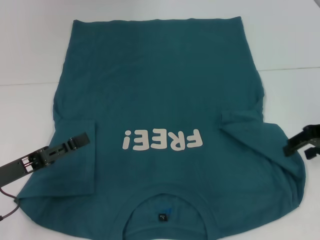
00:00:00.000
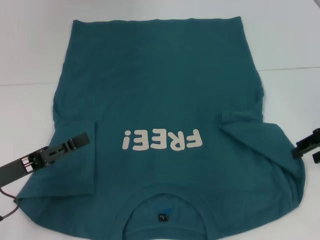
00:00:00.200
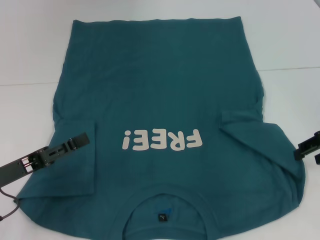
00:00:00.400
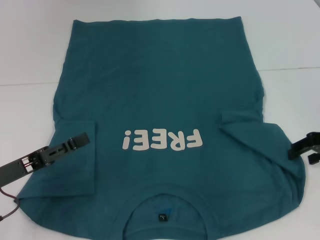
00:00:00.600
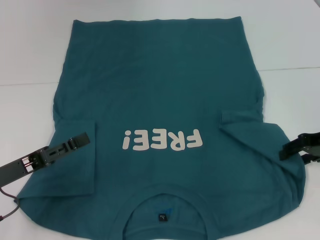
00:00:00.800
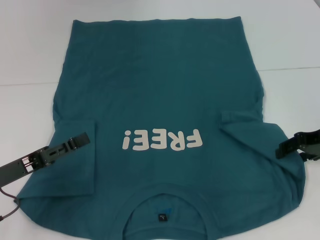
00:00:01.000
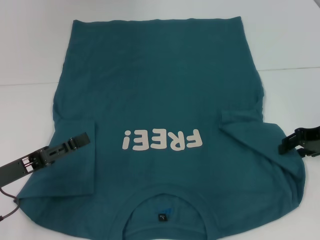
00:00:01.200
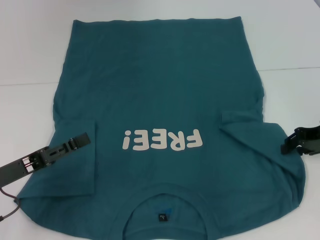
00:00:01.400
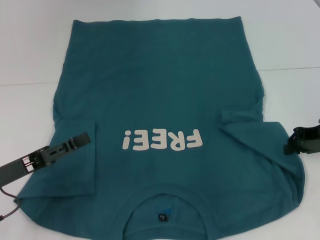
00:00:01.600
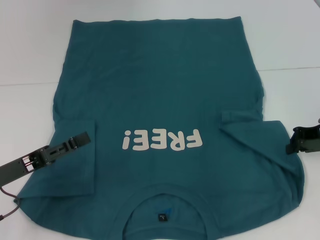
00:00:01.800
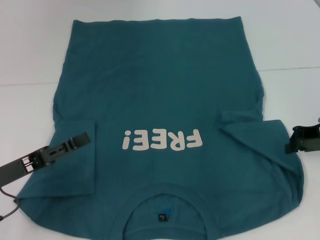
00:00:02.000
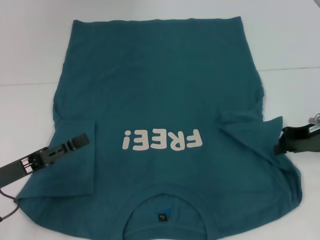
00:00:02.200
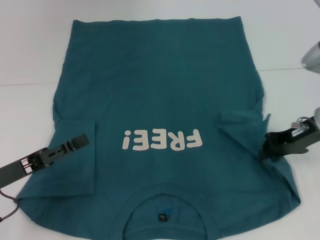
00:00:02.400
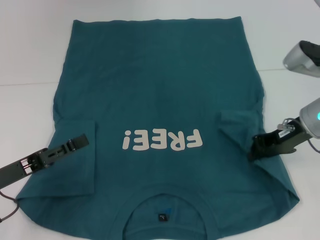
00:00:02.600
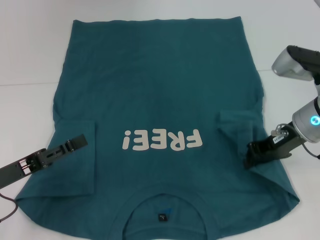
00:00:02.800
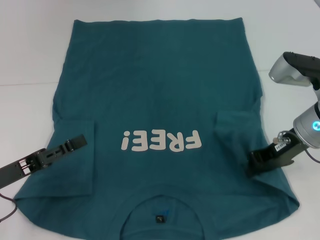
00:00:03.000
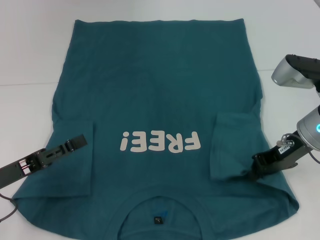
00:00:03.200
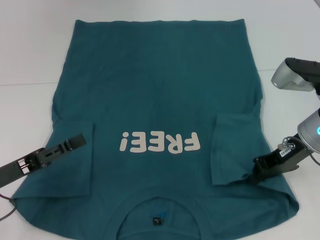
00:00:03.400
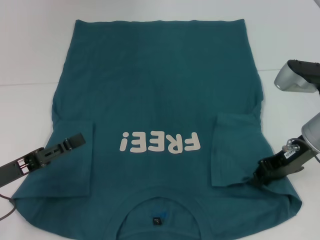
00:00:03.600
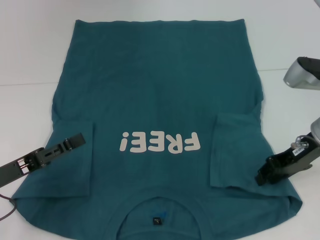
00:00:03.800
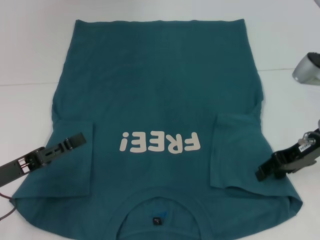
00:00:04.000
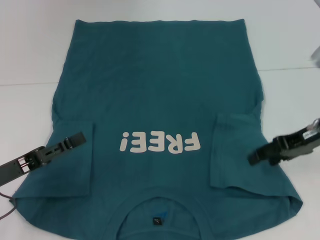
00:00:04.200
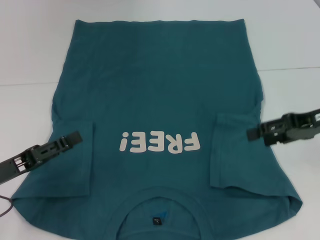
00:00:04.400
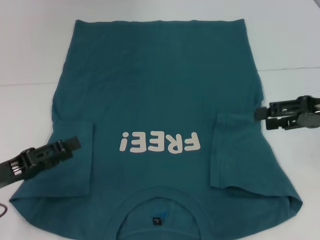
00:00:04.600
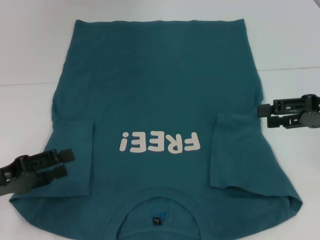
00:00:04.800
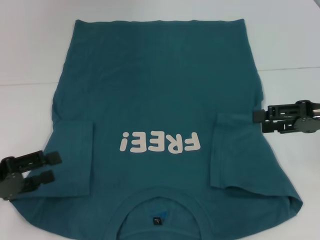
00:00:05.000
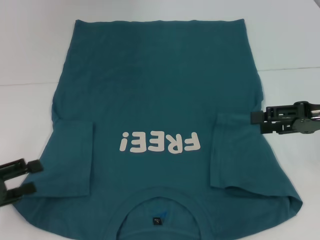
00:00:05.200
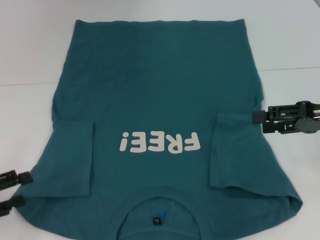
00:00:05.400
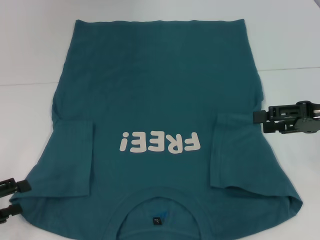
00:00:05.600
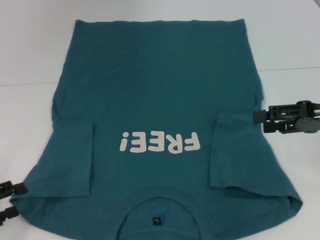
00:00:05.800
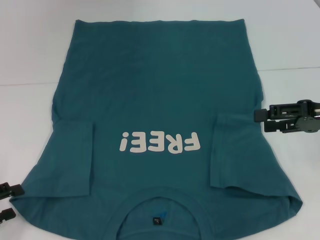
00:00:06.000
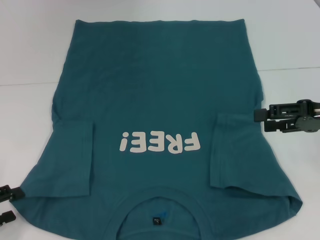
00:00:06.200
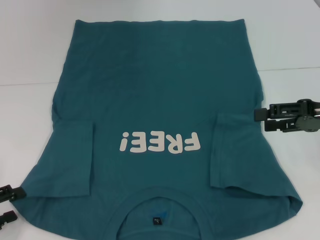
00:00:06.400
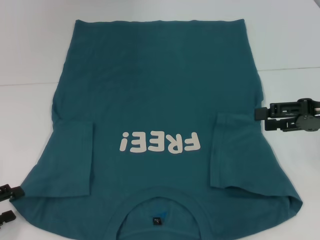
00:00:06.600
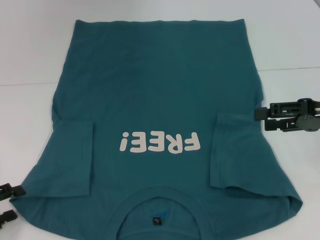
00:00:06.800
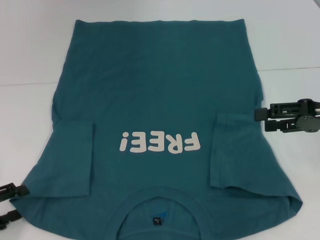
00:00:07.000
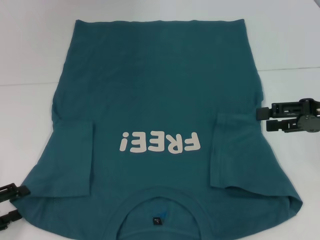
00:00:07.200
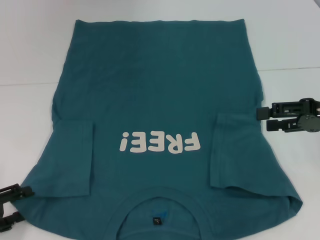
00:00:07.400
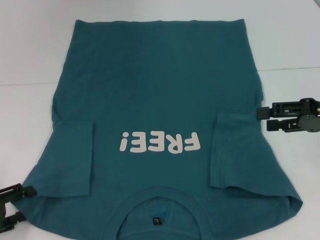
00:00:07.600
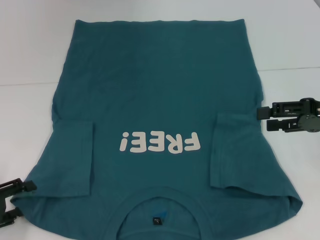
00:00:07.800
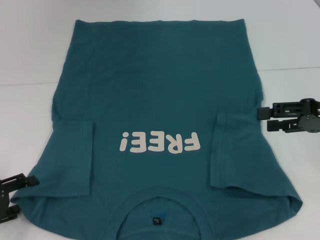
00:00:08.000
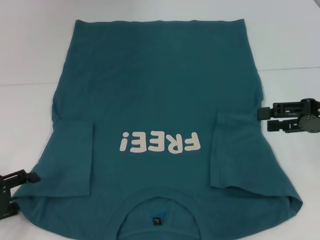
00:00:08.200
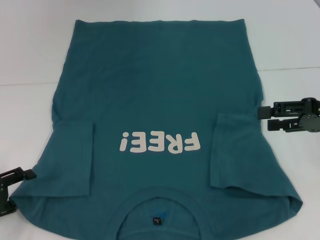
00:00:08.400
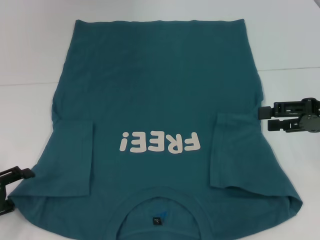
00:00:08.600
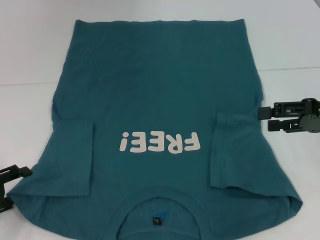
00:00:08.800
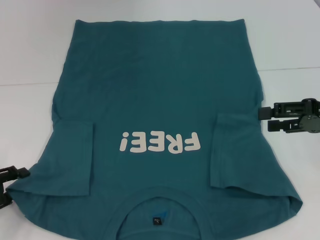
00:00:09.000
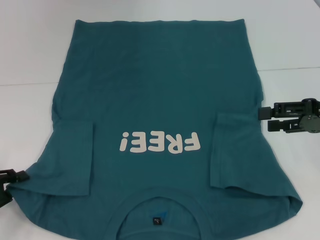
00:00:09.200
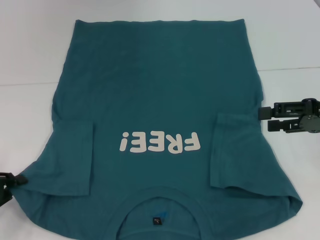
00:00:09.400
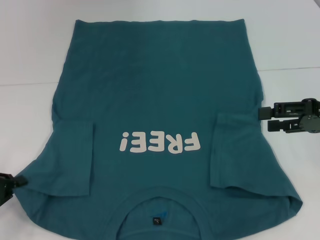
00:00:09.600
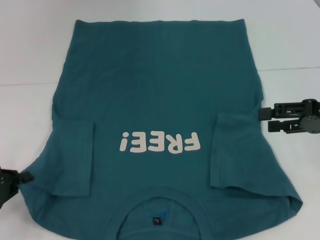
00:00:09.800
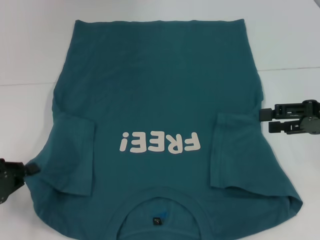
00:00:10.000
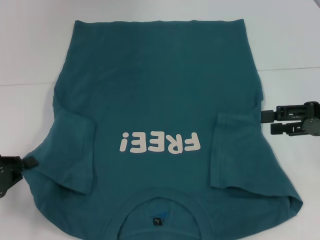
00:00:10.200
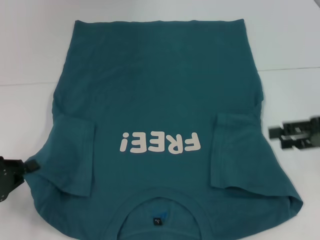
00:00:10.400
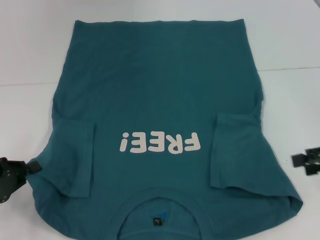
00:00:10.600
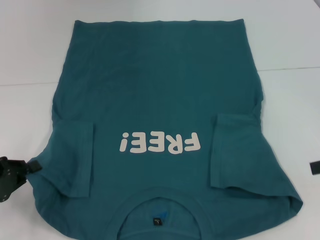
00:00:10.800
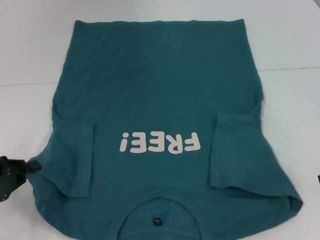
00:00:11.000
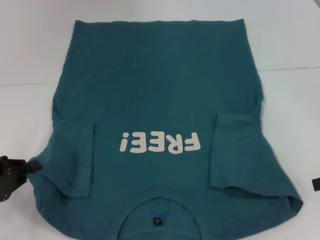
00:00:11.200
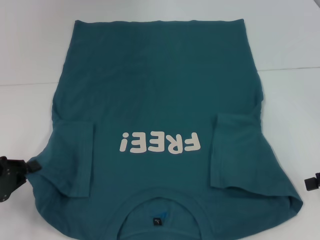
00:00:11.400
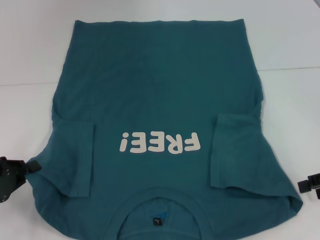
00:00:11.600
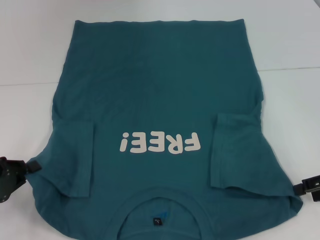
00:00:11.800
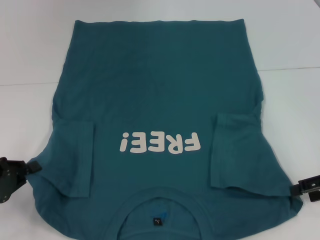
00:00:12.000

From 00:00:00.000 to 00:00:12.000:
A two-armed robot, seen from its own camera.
Step, from 00:00:00.000 to 00:00:04.400: Fold the bottom right sleeve to the right.
Step, from 00:00:04.600 to 00:00:09.600: Grab the bottom left corner with your left hand.
From 00:00:00.000 to 00:00:01.600: The right gripper closes.
From 00:00:01.600 to 00:00:03.000: The right gripper travels to the left by roughly 10 cm.
From 00:00:03.000 to 00:00:04.400: The right gripper shifts approximately 5 cm to the right, and opens.
From 00:00:04.400 to 00:00:06.000: The left gripper moves to the left, about 10 cm.
From 00:00:06.000 to 00:00:09.000: The grippers make only small movements.
From 00:00:09.000 to 00:00:10.400: The left gripper closes its fingers.

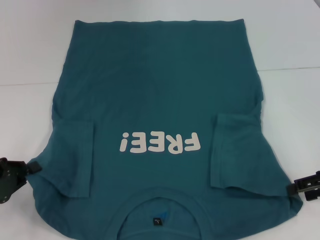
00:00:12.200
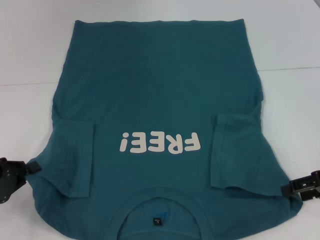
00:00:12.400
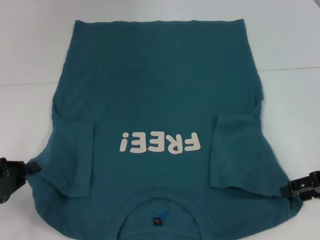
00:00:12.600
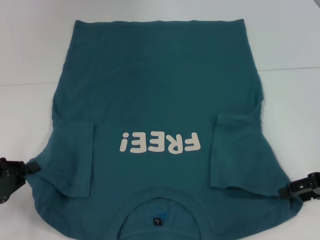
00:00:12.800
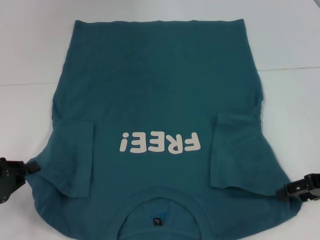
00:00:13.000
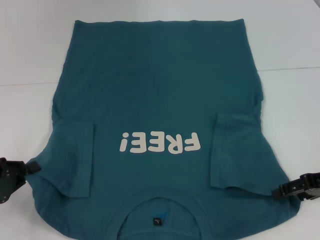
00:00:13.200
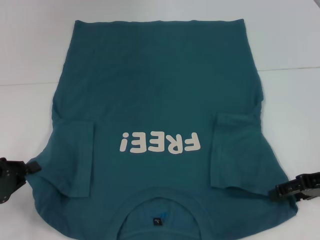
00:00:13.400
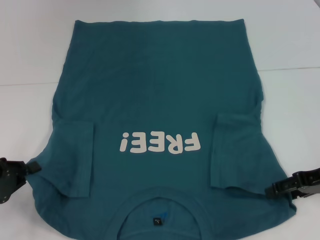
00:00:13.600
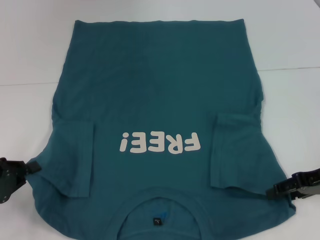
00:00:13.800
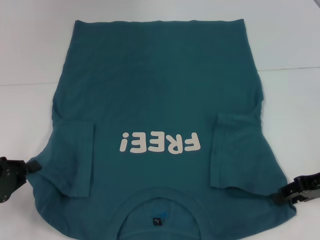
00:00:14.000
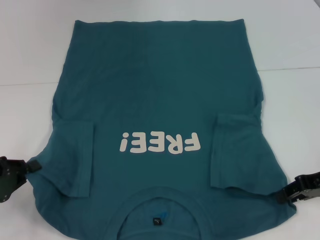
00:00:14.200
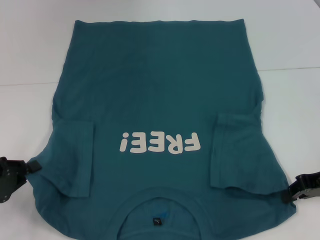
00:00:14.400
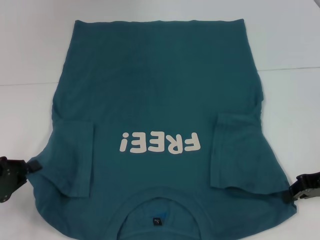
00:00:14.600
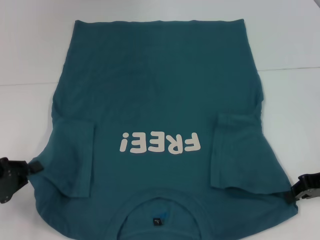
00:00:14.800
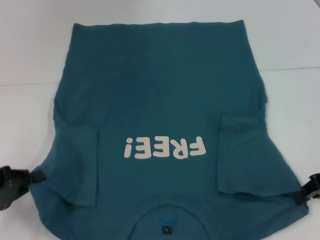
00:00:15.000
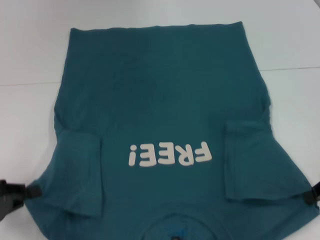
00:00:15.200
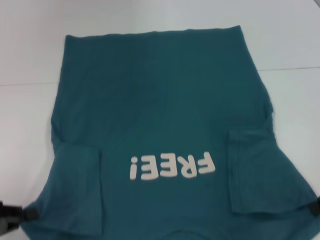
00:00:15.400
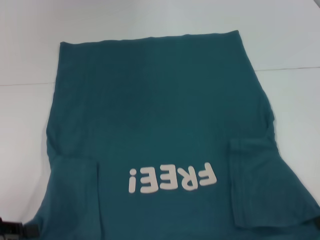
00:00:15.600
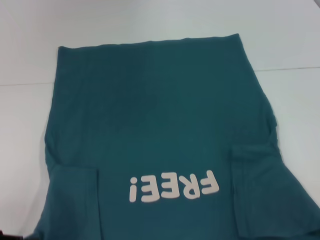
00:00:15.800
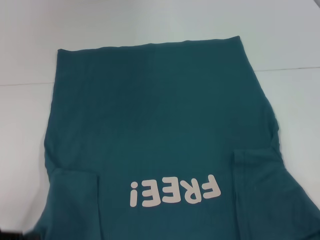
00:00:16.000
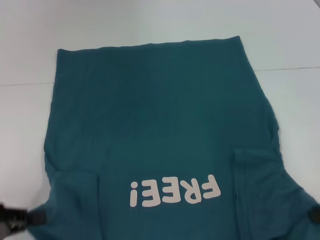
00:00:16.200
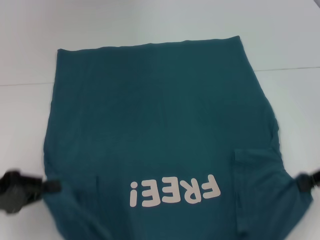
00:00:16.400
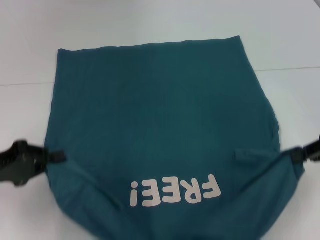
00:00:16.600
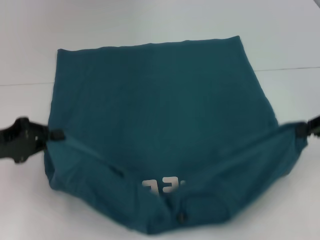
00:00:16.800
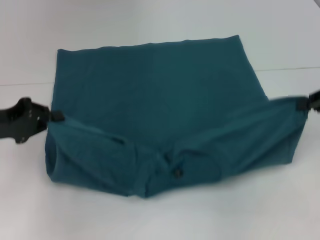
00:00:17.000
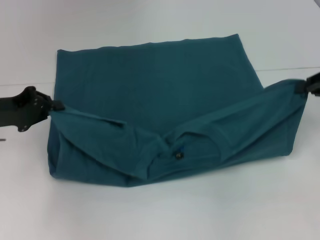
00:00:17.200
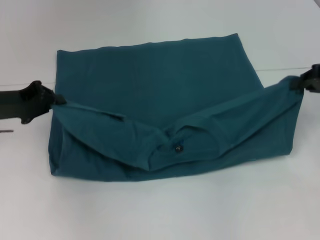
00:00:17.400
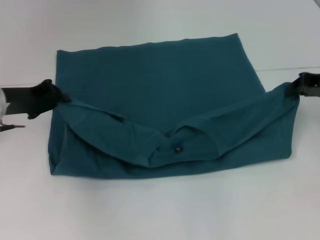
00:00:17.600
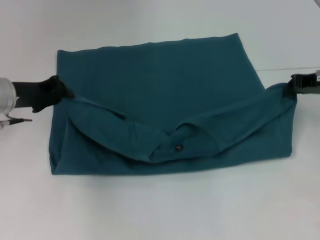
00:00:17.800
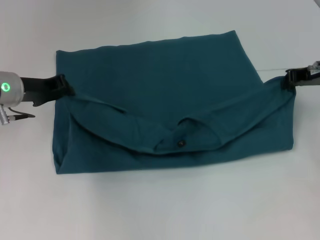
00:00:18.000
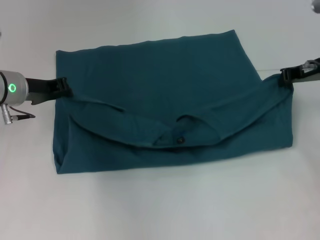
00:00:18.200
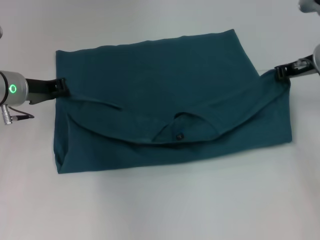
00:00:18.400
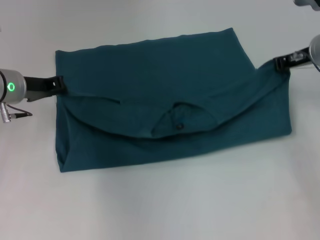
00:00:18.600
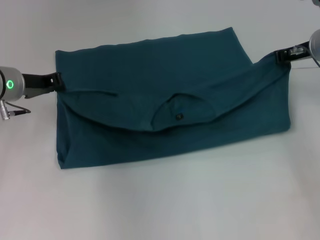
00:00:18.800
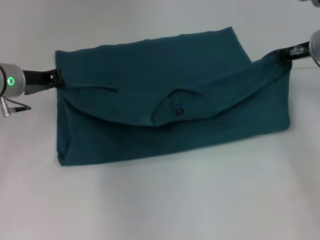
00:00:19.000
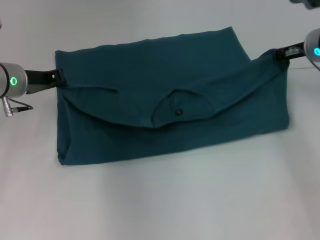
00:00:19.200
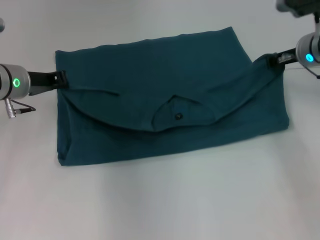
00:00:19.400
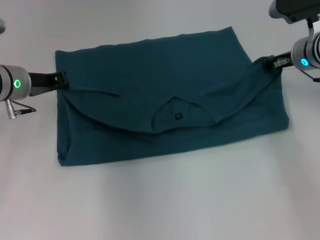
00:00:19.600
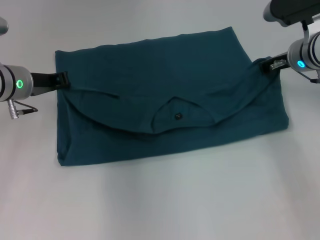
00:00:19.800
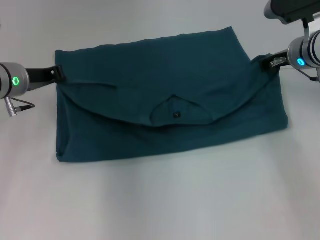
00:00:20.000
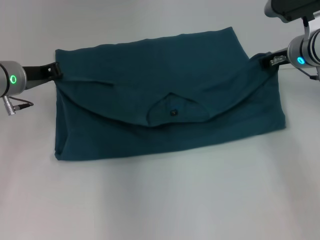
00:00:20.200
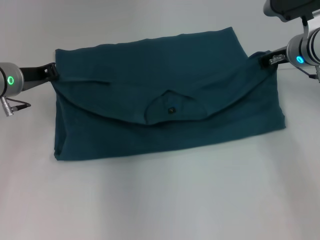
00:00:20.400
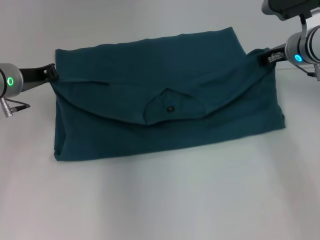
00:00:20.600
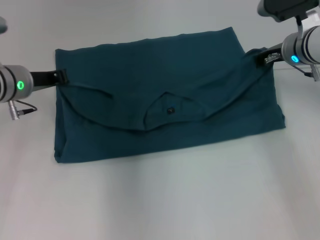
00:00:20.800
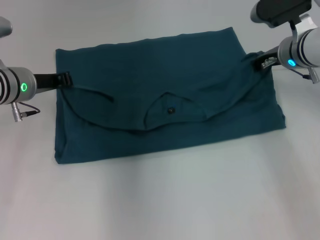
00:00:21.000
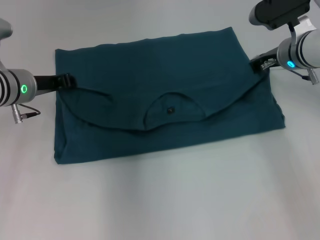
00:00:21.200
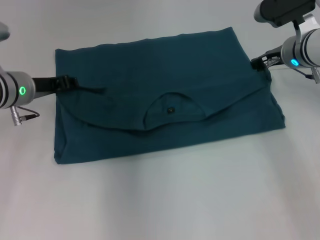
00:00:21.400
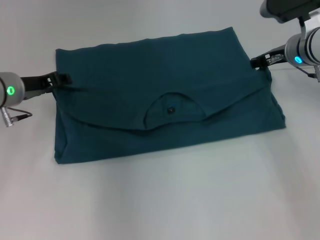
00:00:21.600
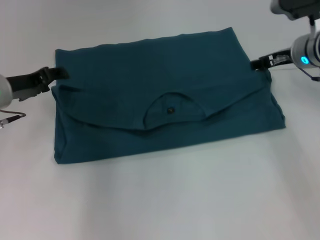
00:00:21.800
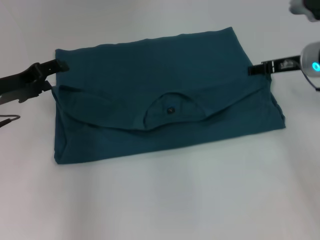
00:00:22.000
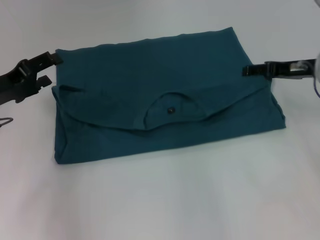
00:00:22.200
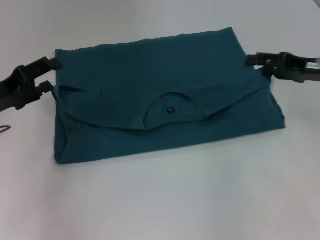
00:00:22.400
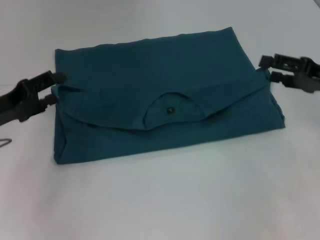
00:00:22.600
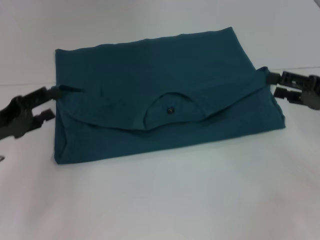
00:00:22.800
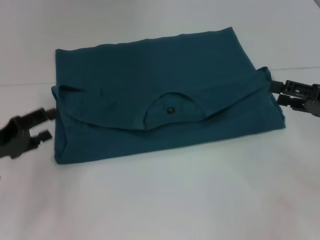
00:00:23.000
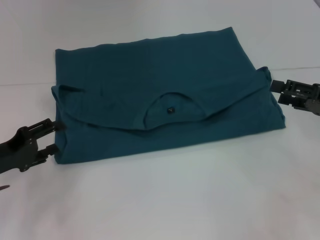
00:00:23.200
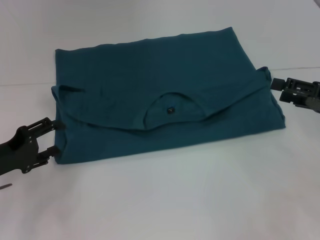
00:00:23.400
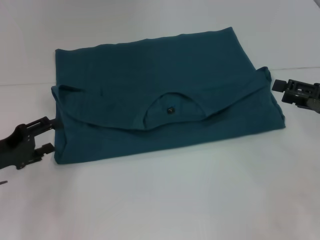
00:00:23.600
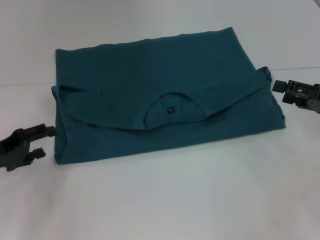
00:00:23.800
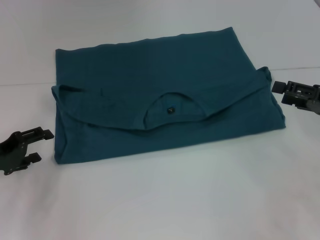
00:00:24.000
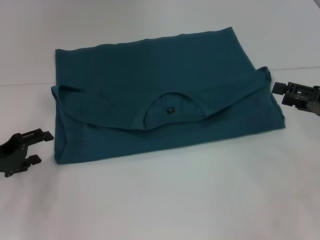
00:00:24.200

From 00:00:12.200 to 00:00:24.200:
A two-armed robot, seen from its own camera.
Step, from 00:00:12.200 to 00:00:14.800: Grab the bottom right corner with your right hand.
Step, from 00:00:15.000 to 00:00:22.000: Fold the clothes to the left.
Step, from 00:00:15.000 to 00:00:22.000: Fold the clothes to the right.
From 00:00:12.200 to 00:00:13.800: The grippers move only a little.
From 00:00:13.800 to 00:00:15.200: The right gripper closes its fingers.
From 00:00:15.200 to 00:00:16.600: The left gripper shifts by approximately 5 cm.
From 00:00:16.600 to 00:00:18.200: The right gripper shifts approximately 15 cm forward and to the left. The left gripper goes roughly 15 cm forward and to the right.
From 00:00:18.200 to 00:00:19.800: The right gripper moves roughly 5 cm.
From 00:00:19.800 to 00:00:21.200: The grippers move only a little.
From 00:00:21.200 to 00:00:22.600: The right gripper is displaced backward and to the right by some 15 cm, and opens up, while the left gripper shifts approximately 10 cm backward and to the left, and opens up.
From 00:00:22.600 to 00:00:24.200: The left gripper is displaced downward by roughly 5 cm.
